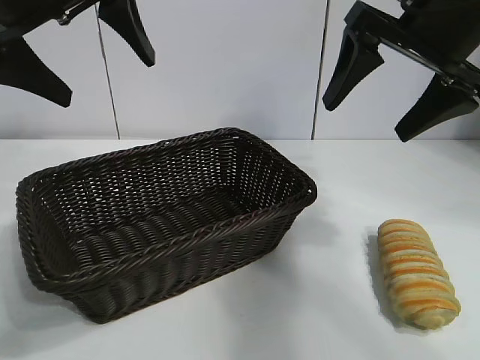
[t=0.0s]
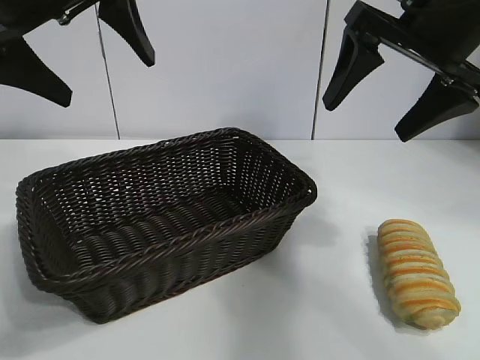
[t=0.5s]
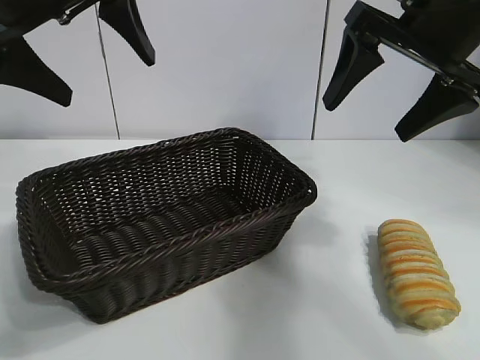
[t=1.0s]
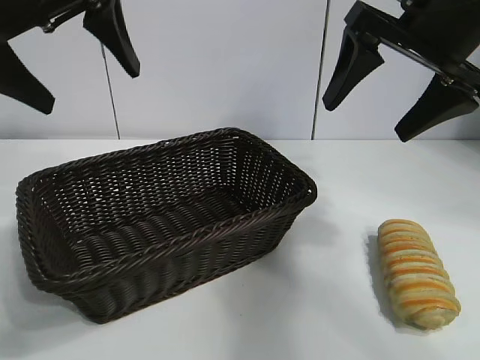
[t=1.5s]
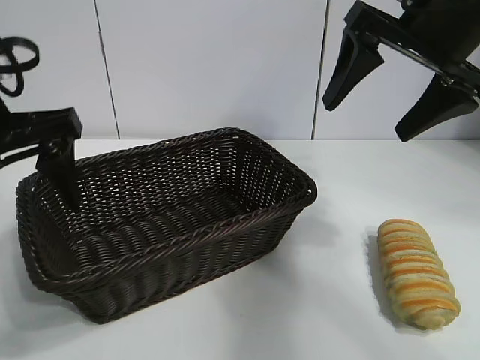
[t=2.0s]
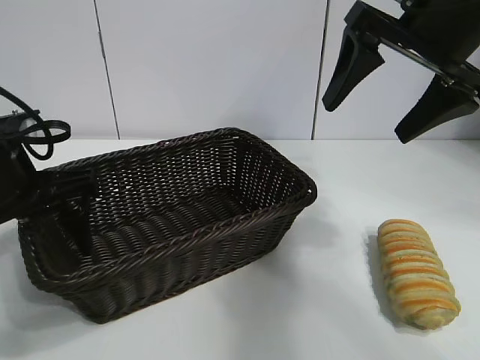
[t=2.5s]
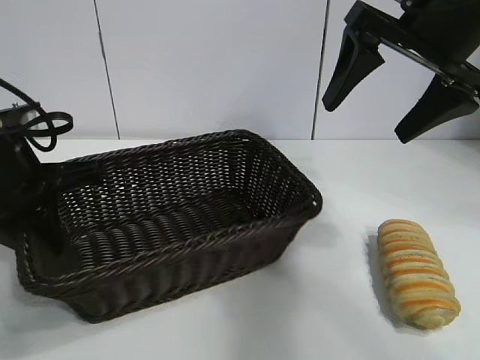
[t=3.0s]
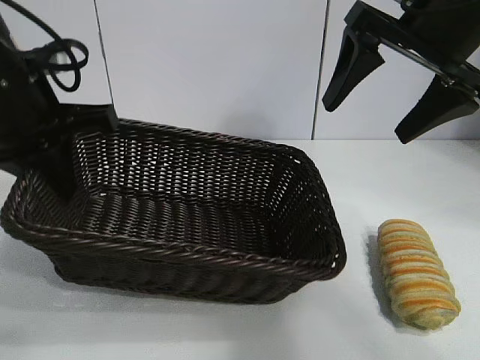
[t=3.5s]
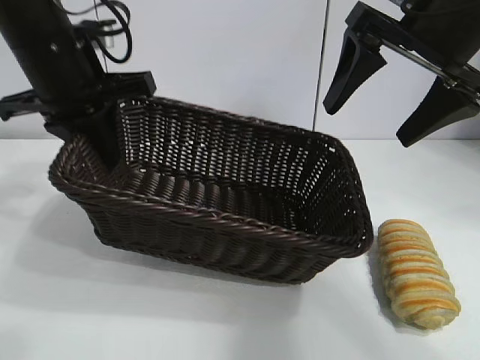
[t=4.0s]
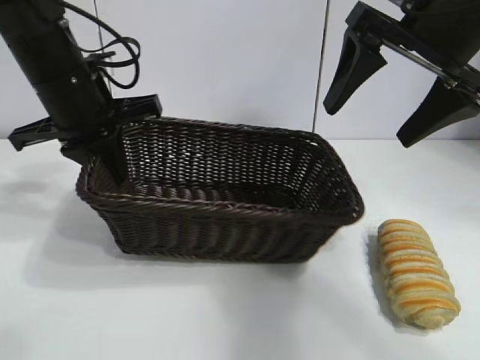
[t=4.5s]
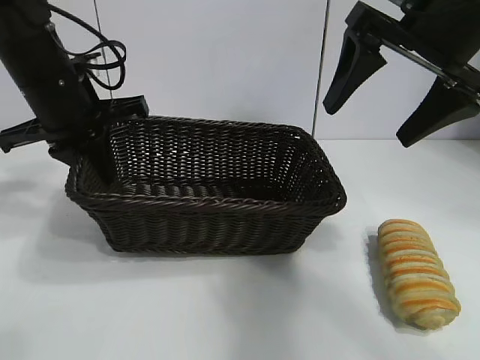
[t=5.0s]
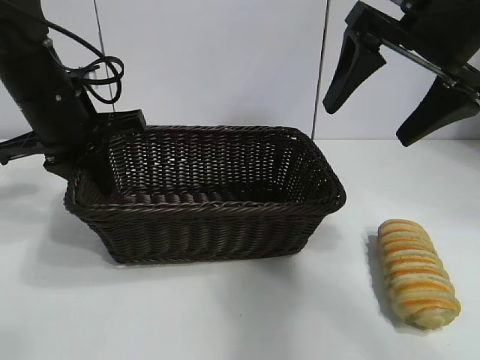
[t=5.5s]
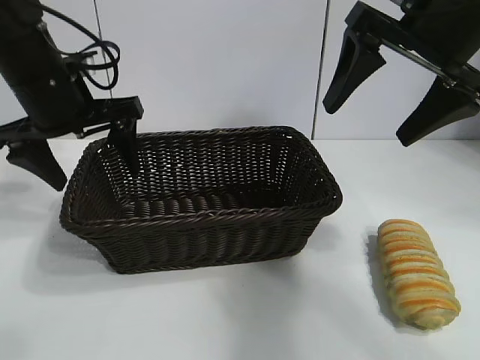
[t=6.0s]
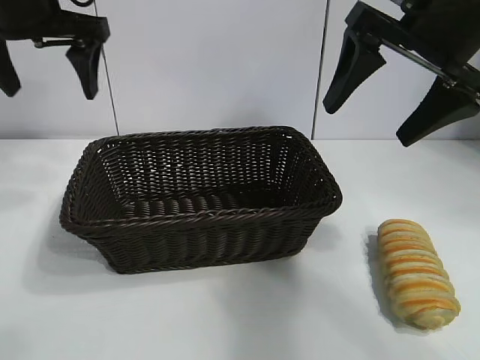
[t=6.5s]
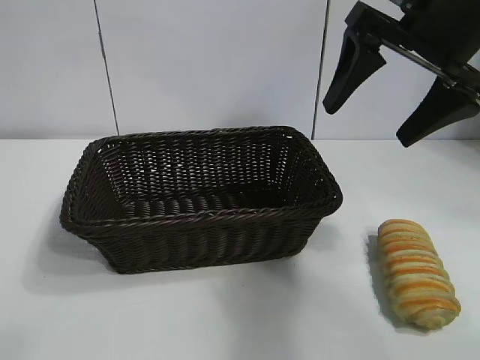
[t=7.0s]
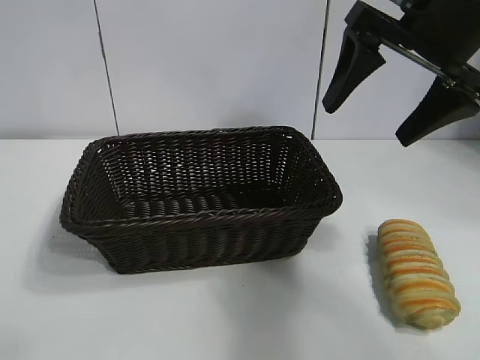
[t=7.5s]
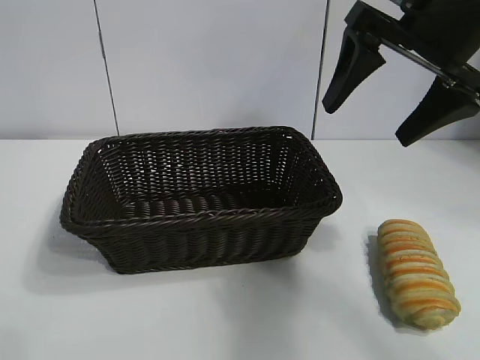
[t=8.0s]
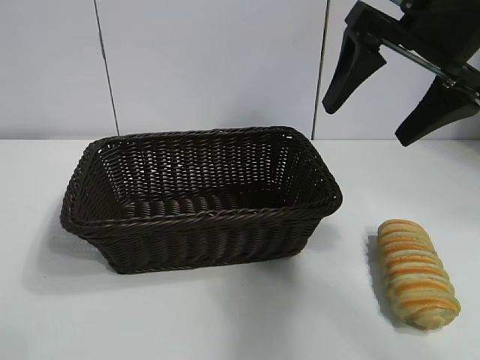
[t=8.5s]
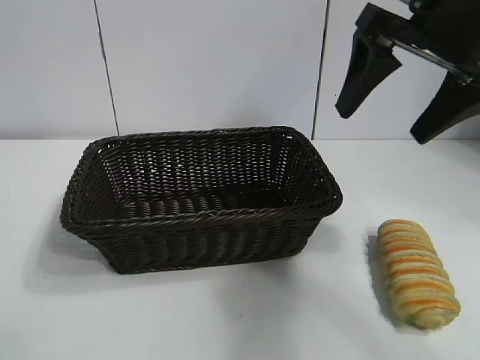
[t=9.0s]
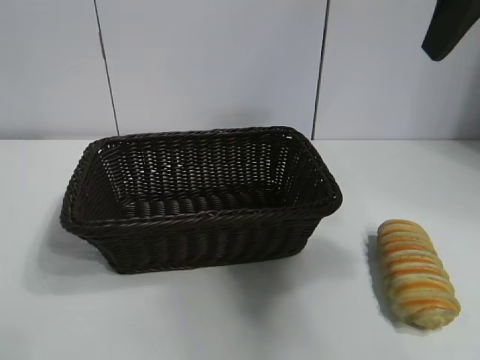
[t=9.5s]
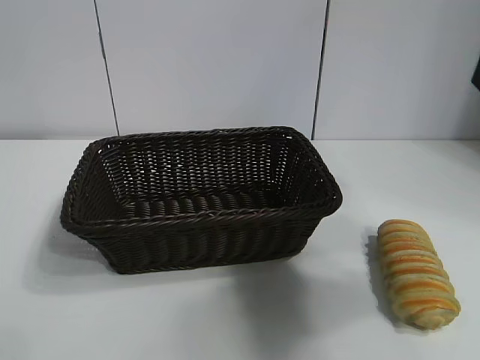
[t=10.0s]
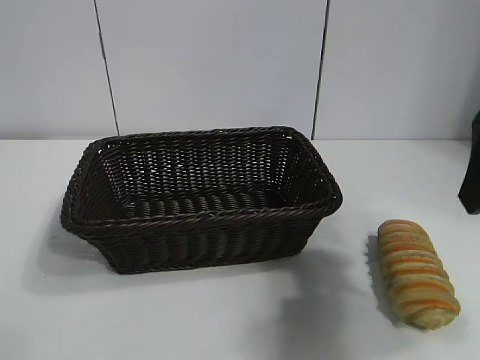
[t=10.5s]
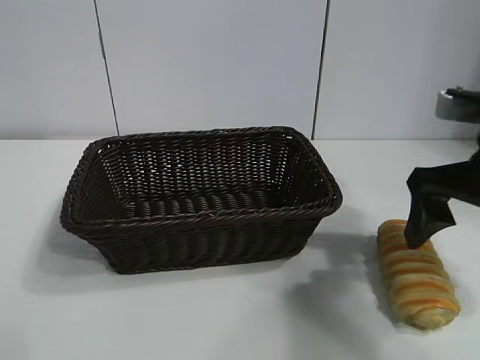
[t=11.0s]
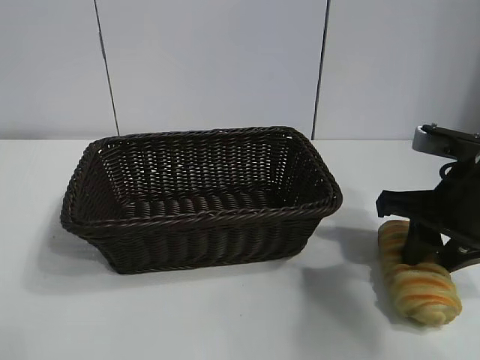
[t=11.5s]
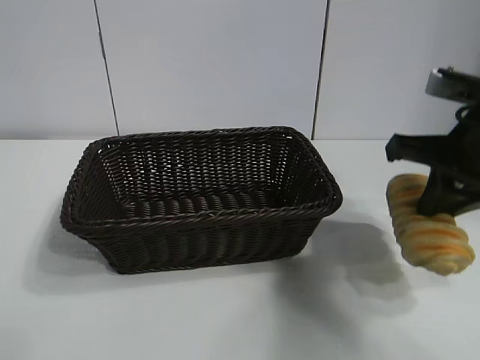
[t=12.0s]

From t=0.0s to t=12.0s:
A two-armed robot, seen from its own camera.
Task of the whole recording: pick up the long bread and put it into the basket.
Step, from t=1.5s to t=2.5s: Grasp the basket with the left gripper.
Step, from t=3.5s to t=5.5s: Place the basket in the center of the table with the left gripper.
Step, from t=6.0s to t=11.5s: Grasp the long bread with right gripper.

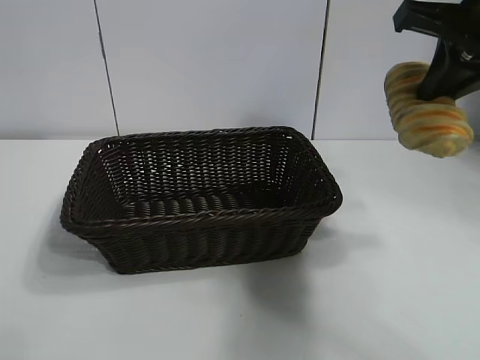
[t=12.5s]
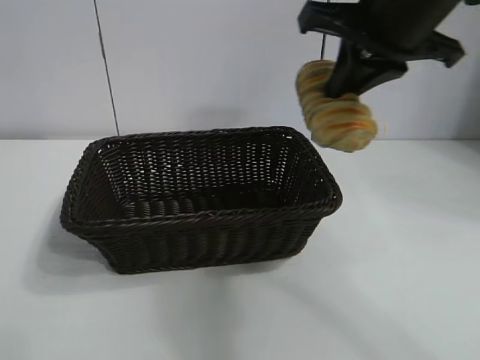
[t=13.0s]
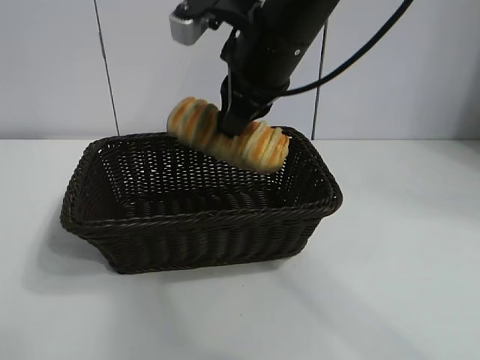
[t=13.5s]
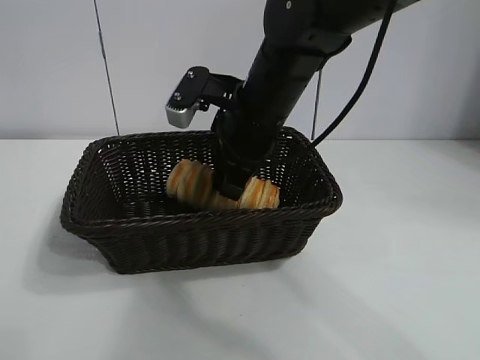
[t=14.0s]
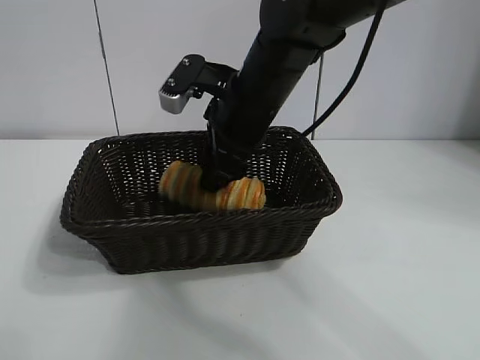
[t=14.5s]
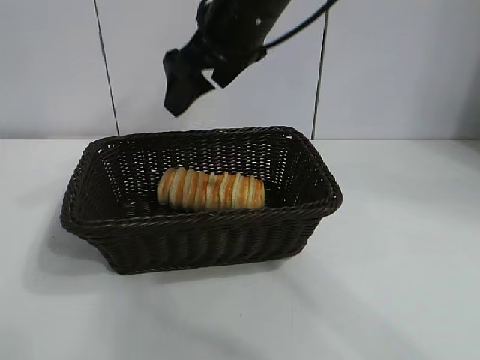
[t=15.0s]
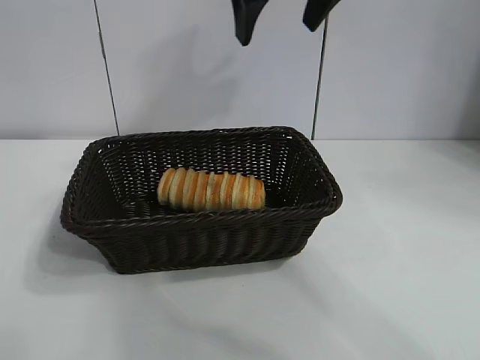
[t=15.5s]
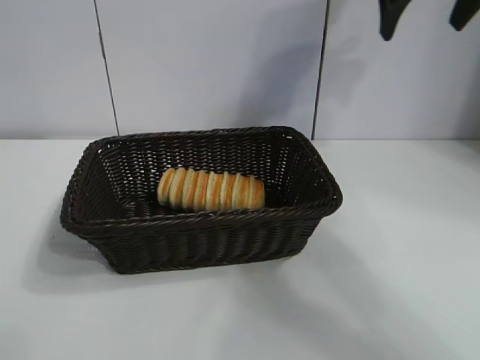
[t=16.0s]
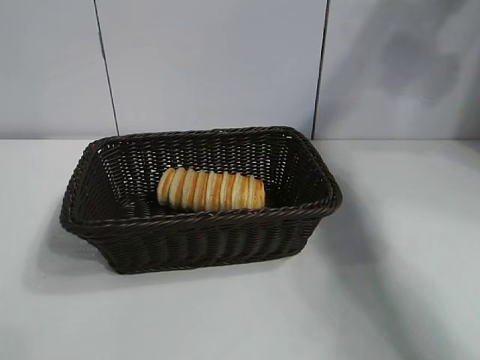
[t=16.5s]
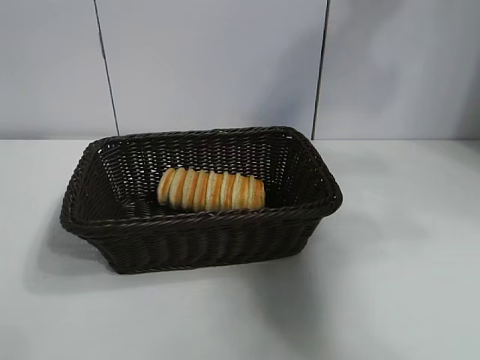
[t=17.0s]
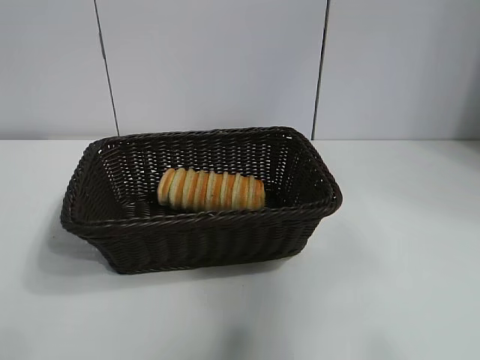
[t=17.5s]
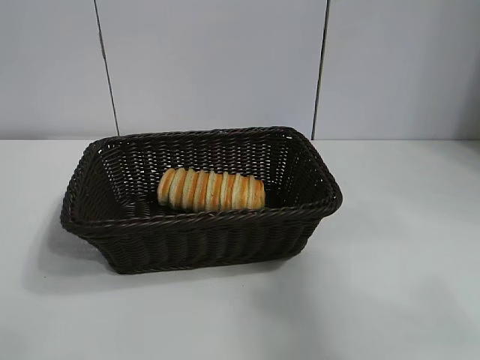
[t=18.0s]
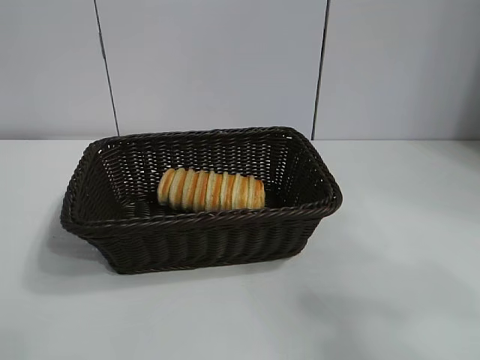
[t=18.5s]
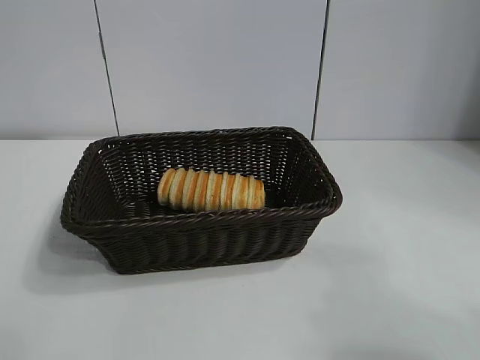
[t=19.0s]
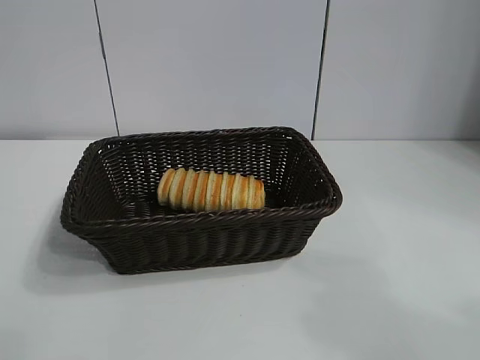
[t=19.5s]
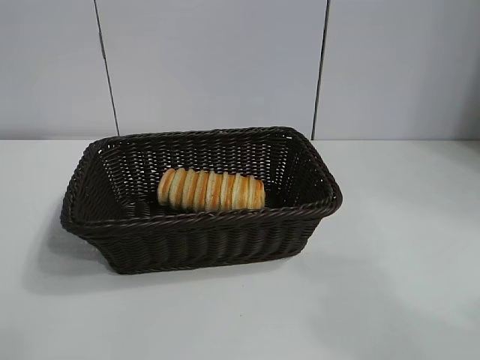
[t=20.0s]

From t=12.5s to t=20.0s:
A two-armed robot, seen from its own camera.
Task of the whole recording: pick up the long bread and put it into the basket.
Step, from t=12.5s to t=14.5s: Place the long bread in the basket with right gripper.
